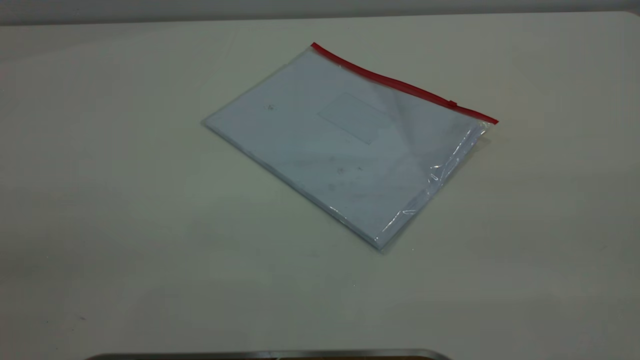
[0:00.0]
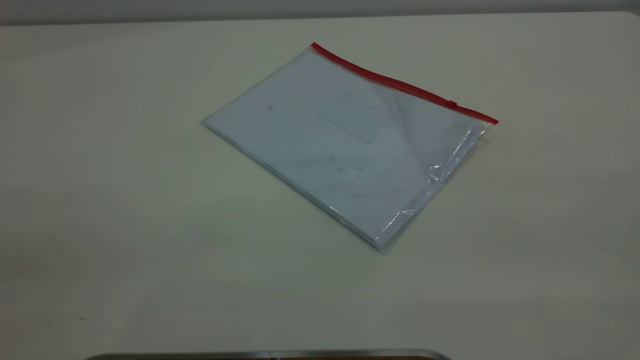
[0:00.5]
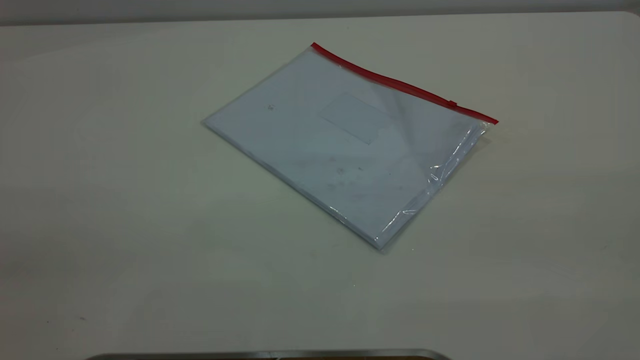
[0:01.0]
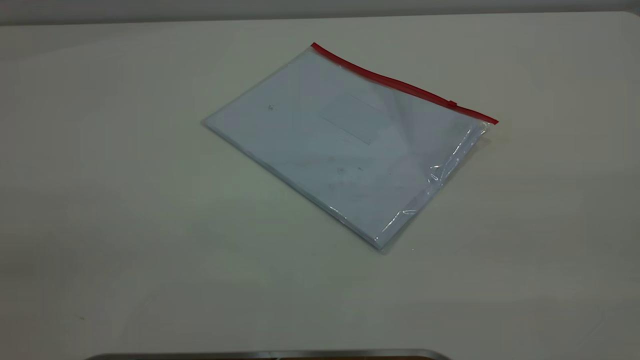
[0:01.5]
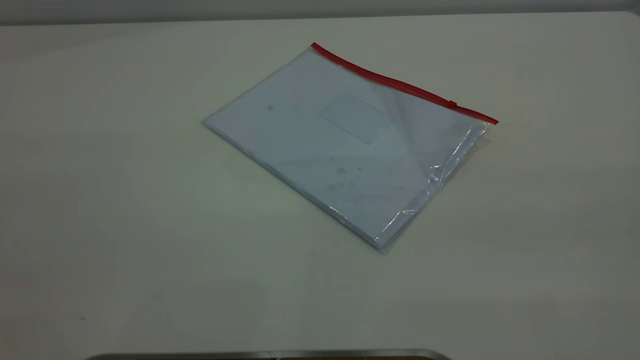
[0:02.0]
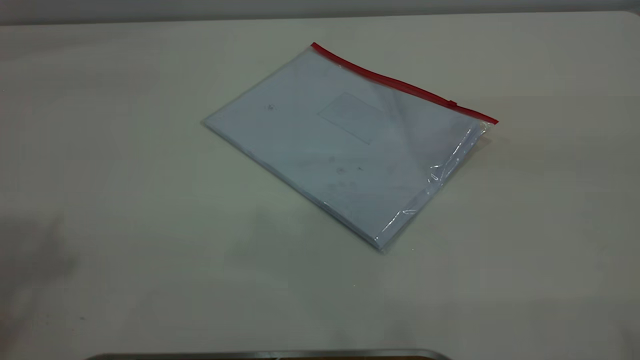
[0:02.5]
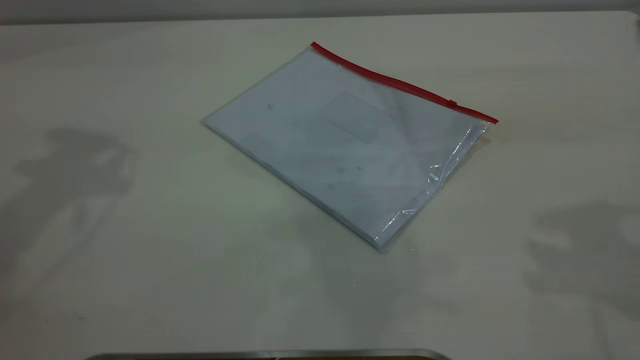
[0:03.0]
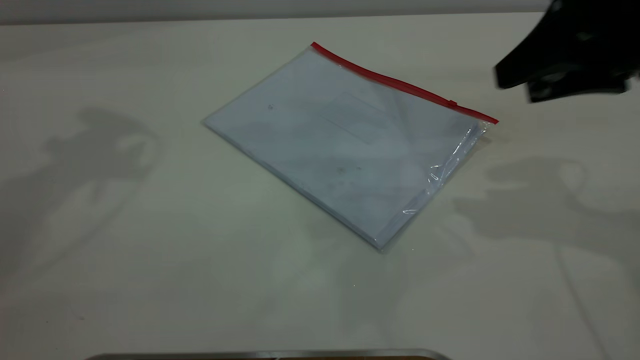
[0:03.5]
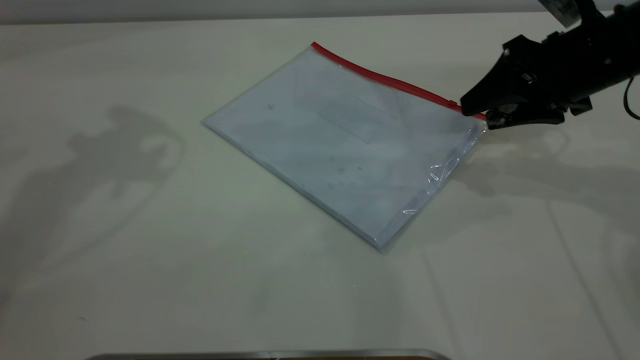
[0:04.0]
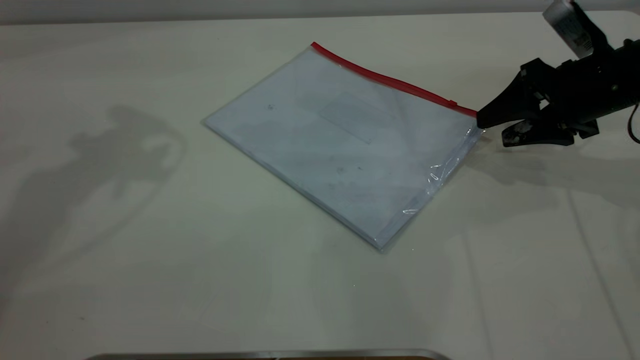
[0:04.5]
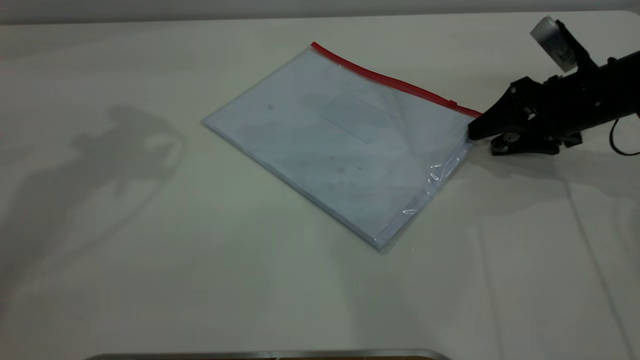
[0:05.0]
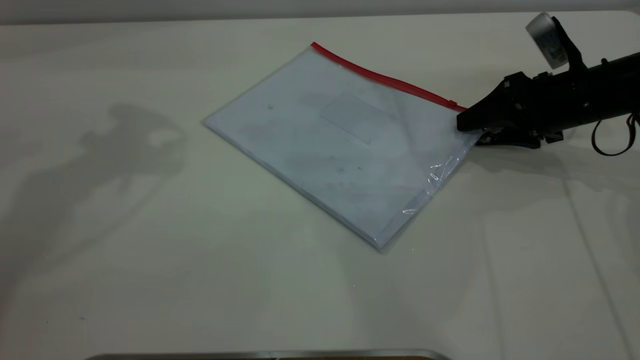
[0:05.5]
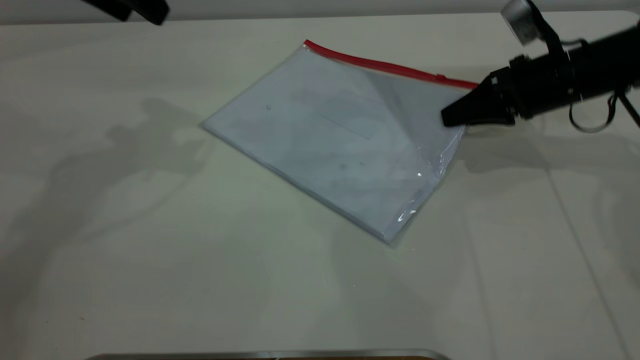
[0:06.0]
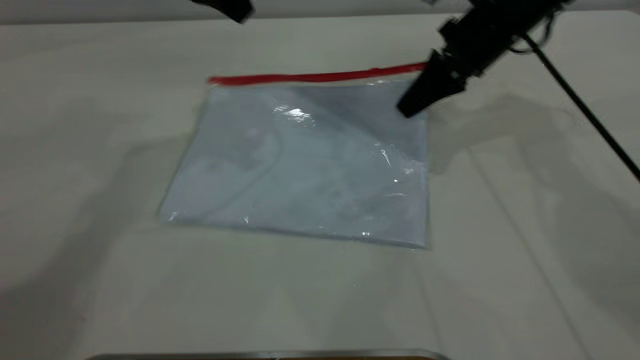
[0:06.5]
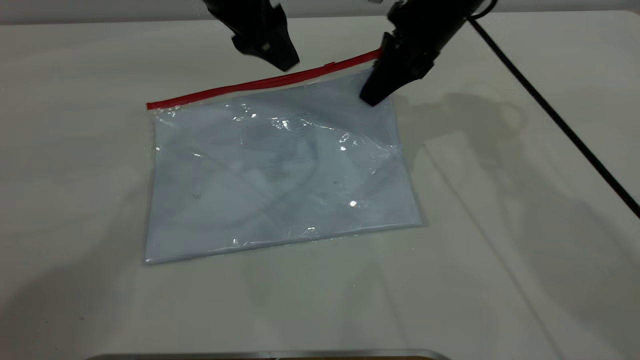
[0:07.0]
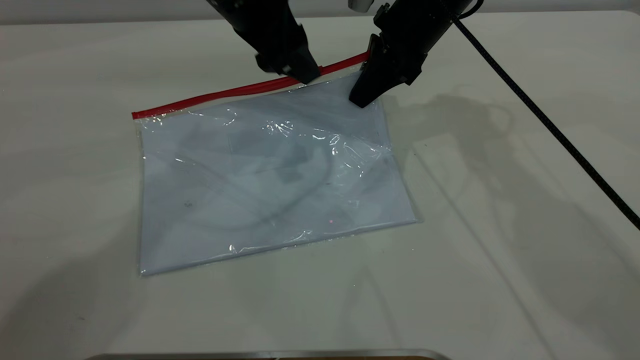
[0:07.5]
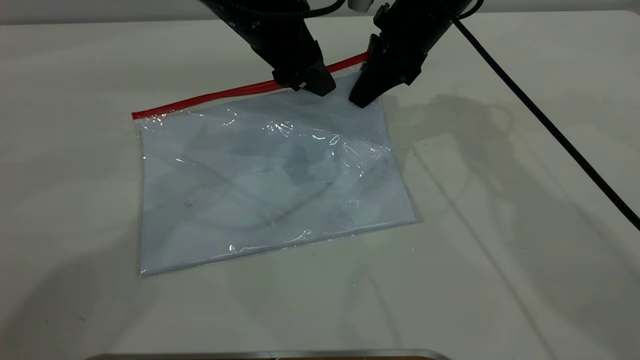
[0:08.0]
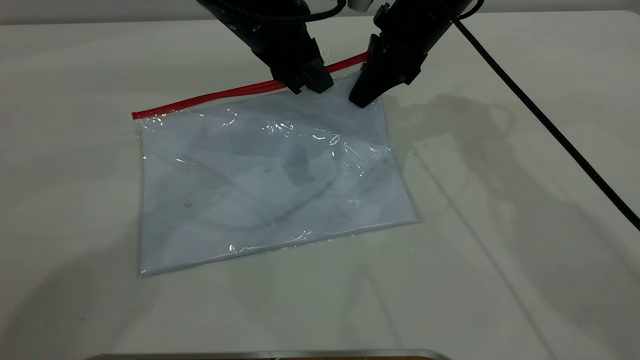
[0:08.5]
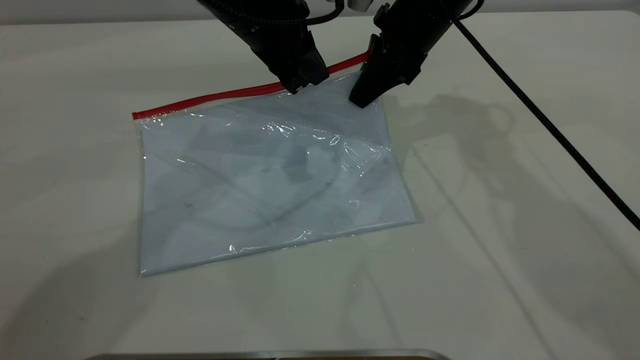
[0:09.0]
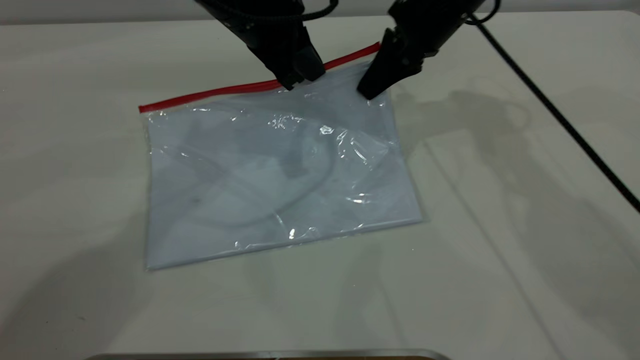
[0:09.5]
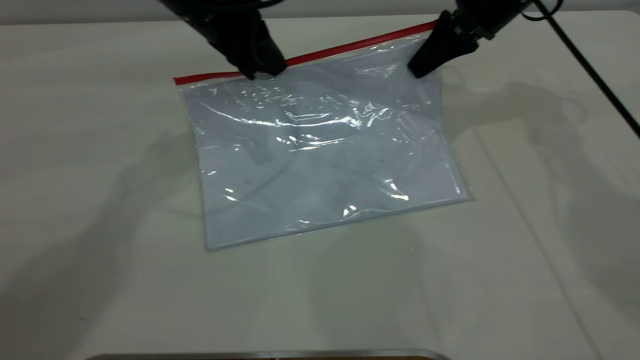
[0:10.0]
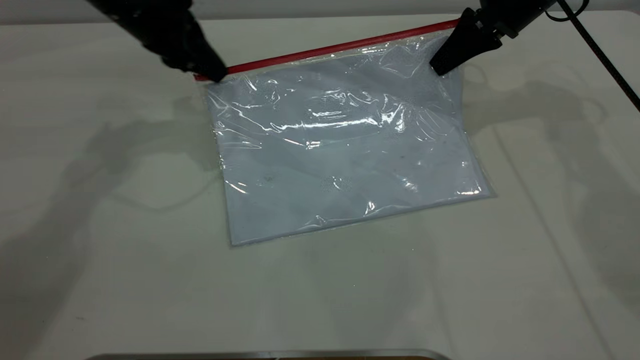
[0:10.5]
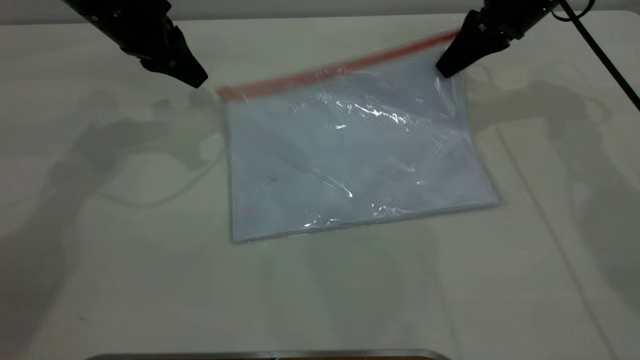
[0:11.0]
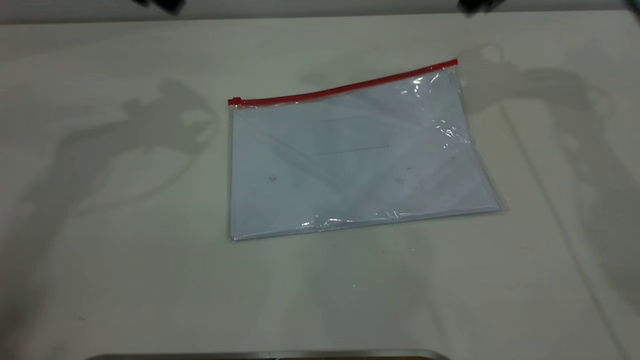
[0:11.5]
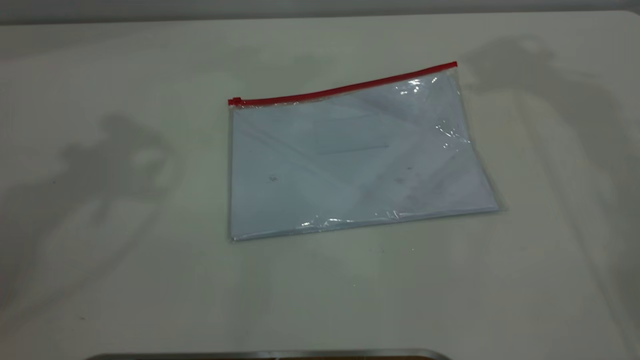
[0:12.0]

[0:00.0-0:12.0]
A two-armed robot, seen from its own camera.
Step, 0:00.0 to 0:06.5: Pick up the transparent plastic bag with the right gripper.
Step, 0:07.0 to 0:10.5: Pulling up the zipper on the transparent plastic bag with the left gripper to close it.
Step, 0:11.0 to 0:12.0: Place the transparent plastic bag.
0:02.0 to 0:04.0: The right gripper is displaced forward and downward by some 40 cm.
0:04.0 to 0:06.0: The left gripper travels downward by approximately 5 cm. Meanwhile the right gripper heads downward and forward, covering approximately 10 cm, and closes its fingers.
0:06.0 to 0:08.0: The left gripper is displaced to the right and downward by some 15 cm; the right gripper is displaced to the left and upward by approximately 15 cm.
0:08.0 to 0:10.0: The left gripper is displaced to the left by about 5 cm, and closes, while the right gripper travels to the right by roughly 10 cm.
0:10.0 to 0:12.0: The grippers both shift upward by roughly 30 cm. The right gripper opens its fingers. The left gripper opens its fingers.
